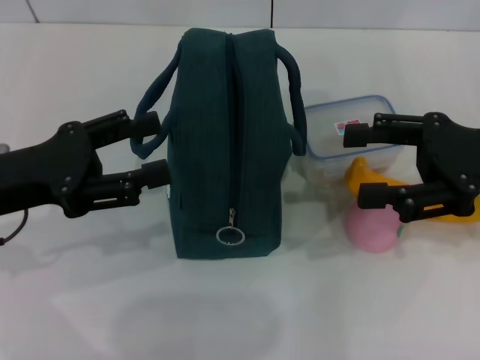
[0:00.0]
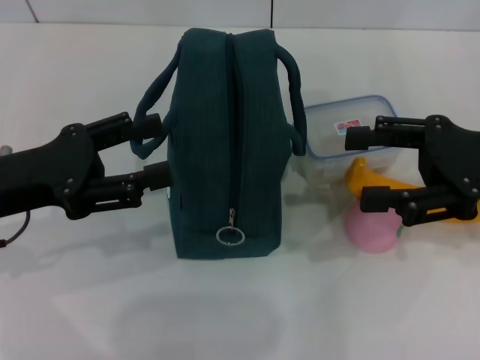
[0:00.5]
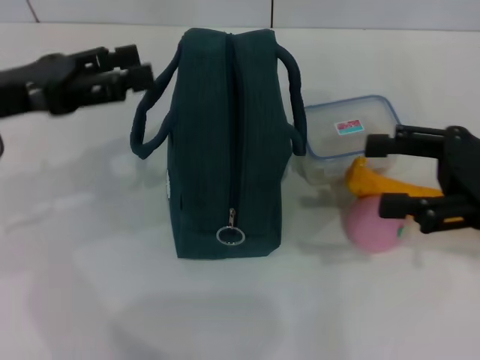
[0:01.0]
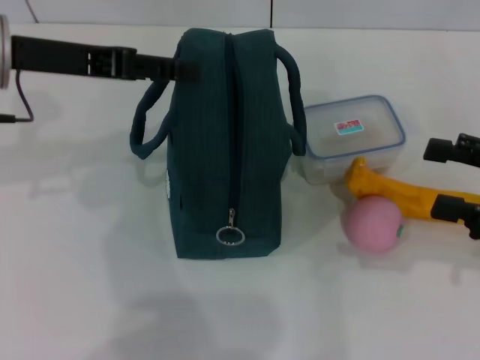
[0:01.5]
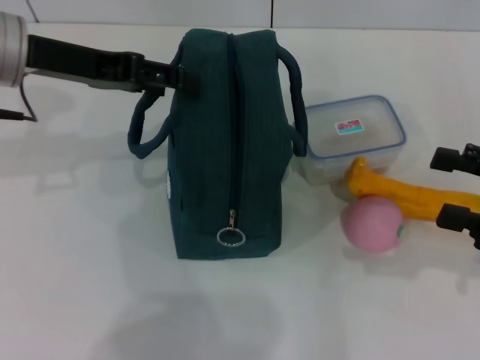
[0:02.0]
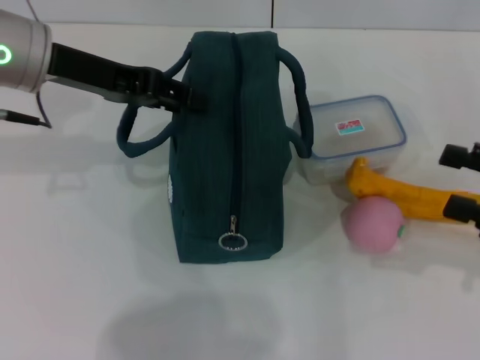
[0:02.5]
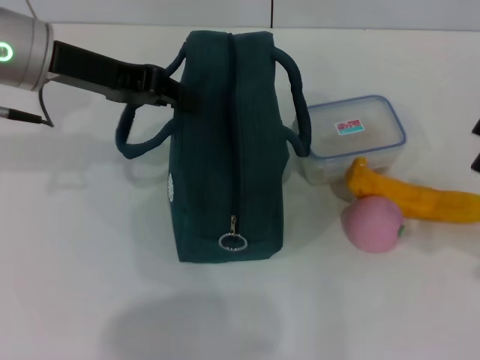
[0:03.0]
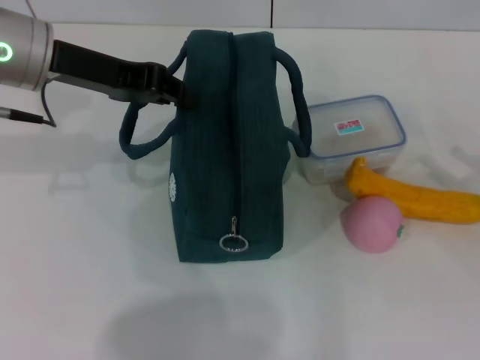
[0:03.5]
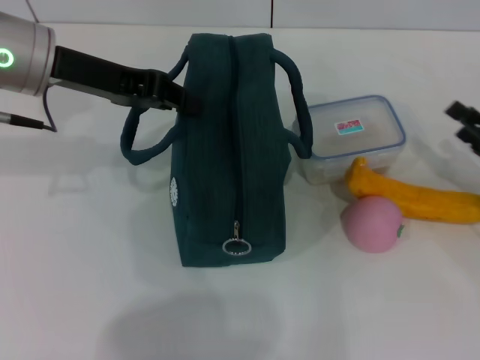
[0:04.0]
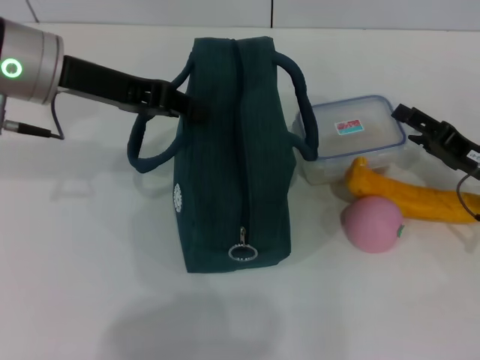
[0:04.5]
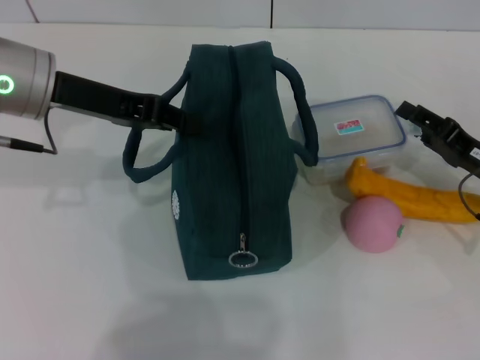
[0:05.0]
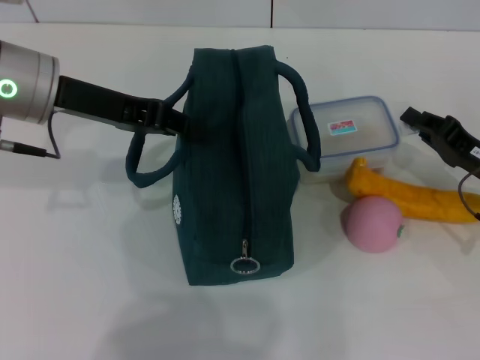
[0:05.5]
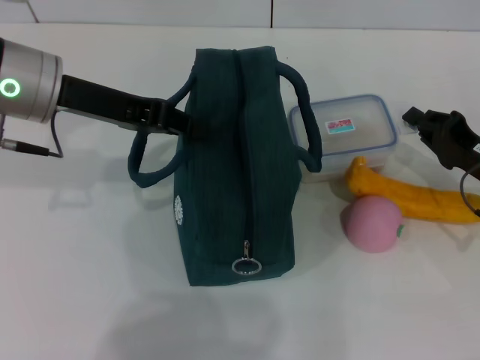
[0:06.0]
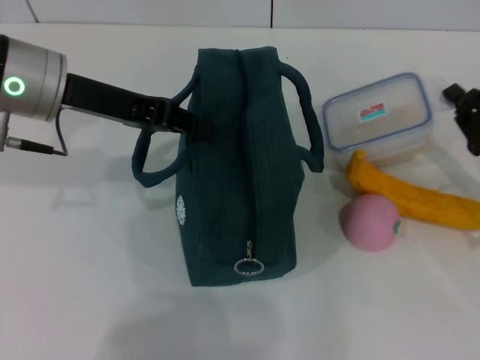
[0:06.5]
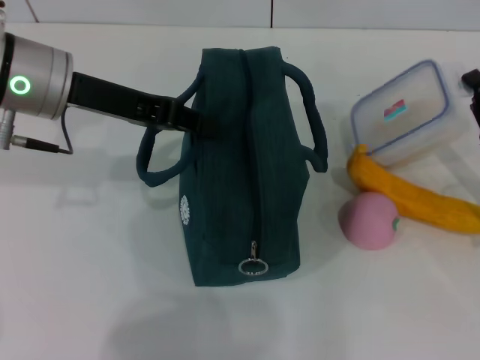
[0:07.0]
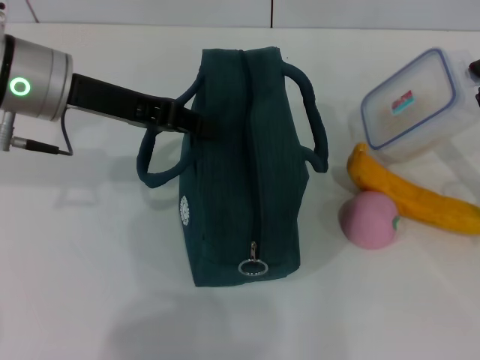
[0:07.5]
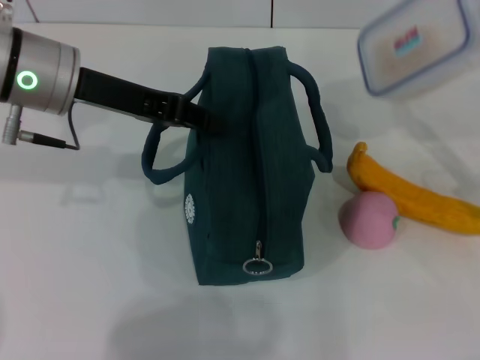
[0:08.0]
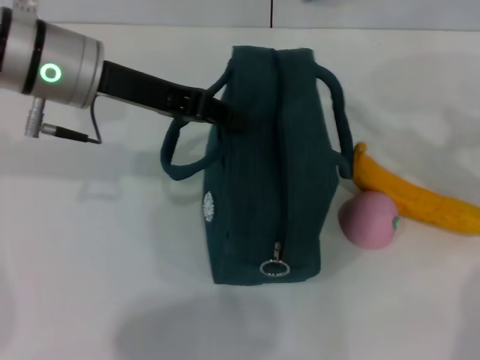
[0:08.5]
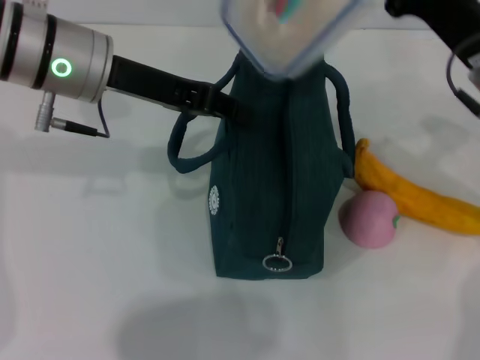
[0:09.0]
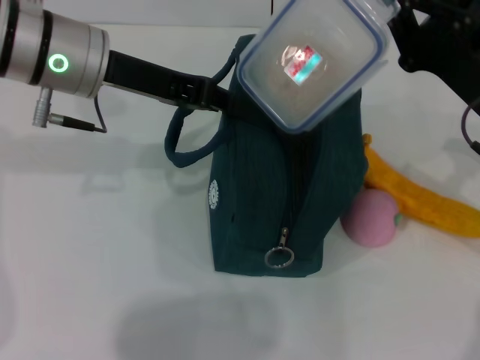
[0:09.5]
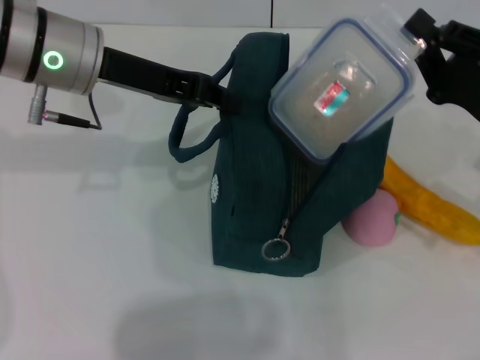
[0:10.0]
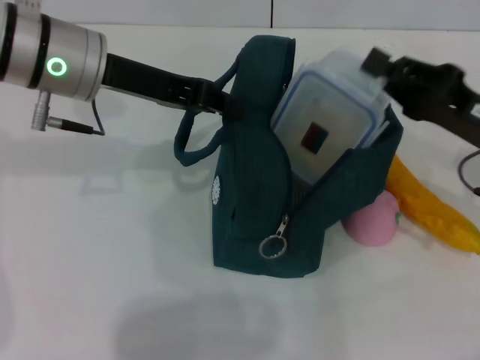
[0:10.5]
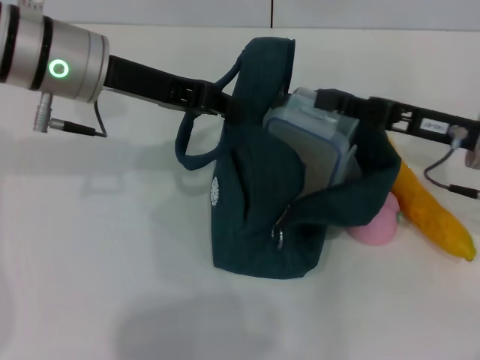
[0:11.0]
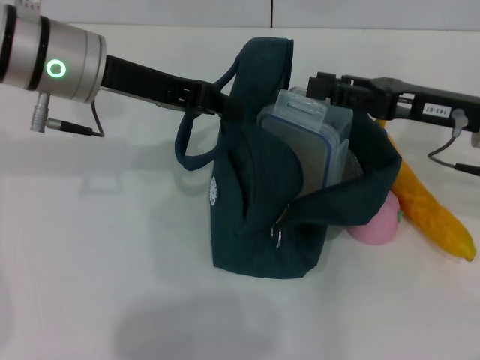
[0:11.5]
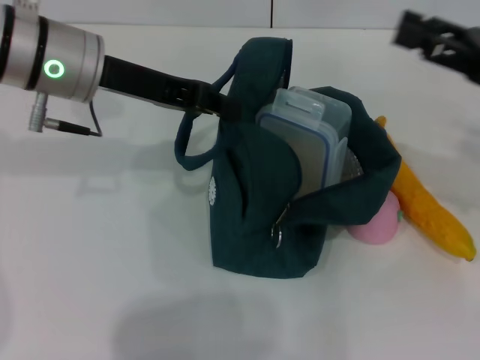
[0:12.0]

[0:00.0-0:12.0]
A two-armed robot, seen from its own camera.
Step, 0.0 to 5.5 s: Hold the lunch bag with your left hand.
Step, 6.0 to 6.5 s: Pick up the lunch box with your right hand.
Step, 7.0 to 11.0 s: Place the lunch box into the lunch bag with your right hand.
0.0 to 2.0 s: The right gripper moves to the right and backward, about 10 cm, while the left gripper heads forward and upward, covering about 15 cm.
2.0 to 4.0 s: The right gripper travels downward by about 10 cm, while the left gripper closes.
4.0 to 6.0 s: The right gripper ends up roughly 5 cm from where it was, and closes up.
6.0 to 8.0 s: The right gripper shifts approximately 5 cm upward.
10.0 to 12.0 s: The right gripper moves upward, some 5 cm, and opens up.

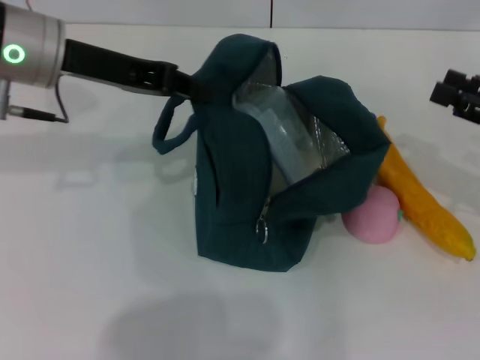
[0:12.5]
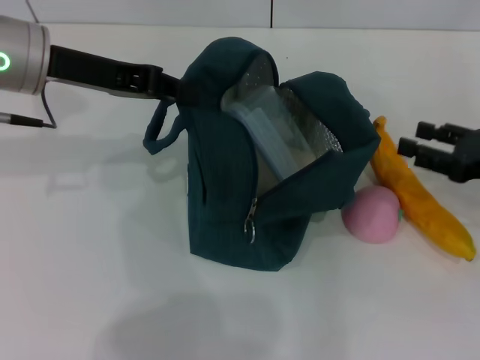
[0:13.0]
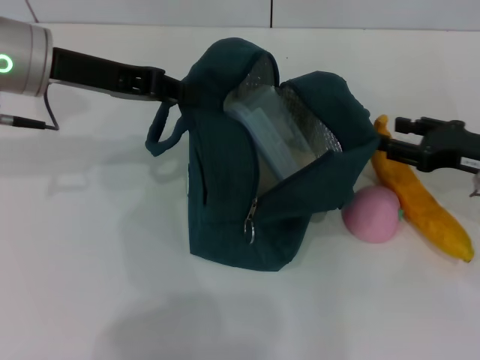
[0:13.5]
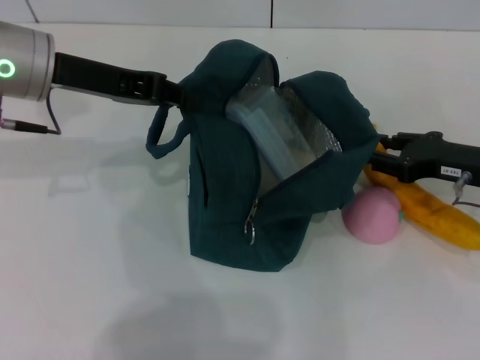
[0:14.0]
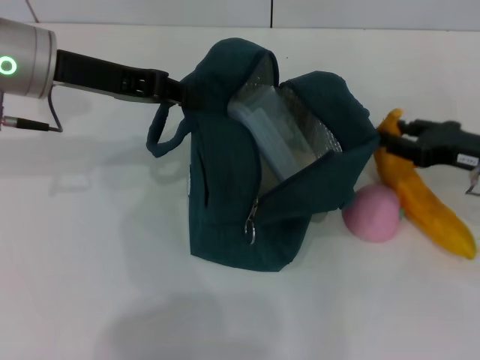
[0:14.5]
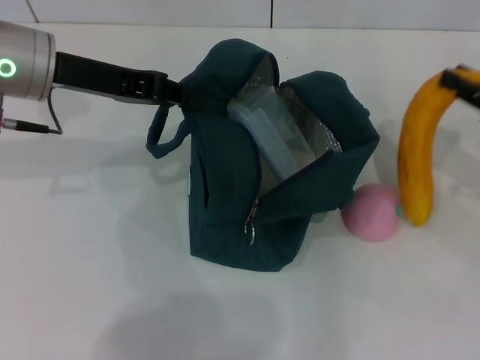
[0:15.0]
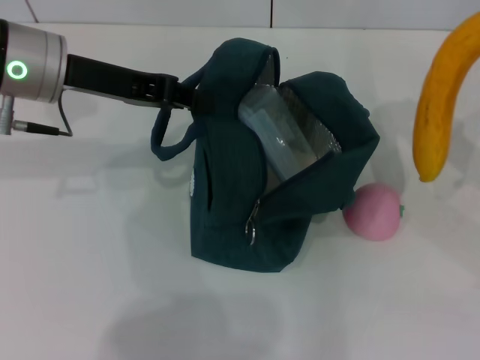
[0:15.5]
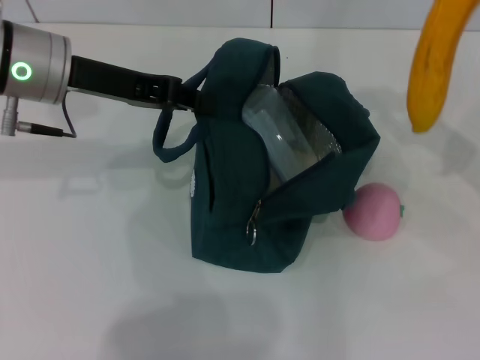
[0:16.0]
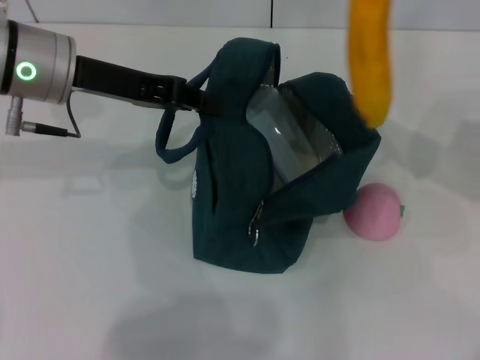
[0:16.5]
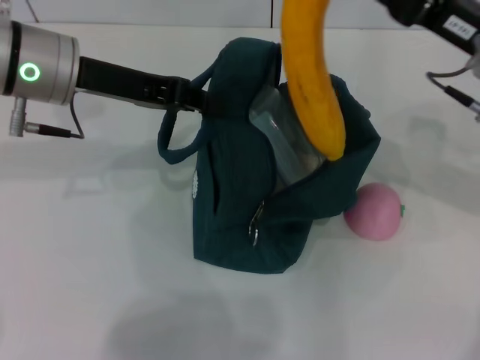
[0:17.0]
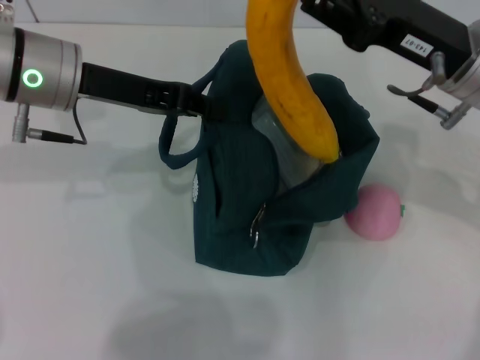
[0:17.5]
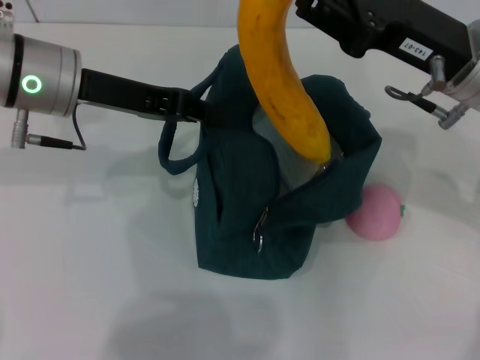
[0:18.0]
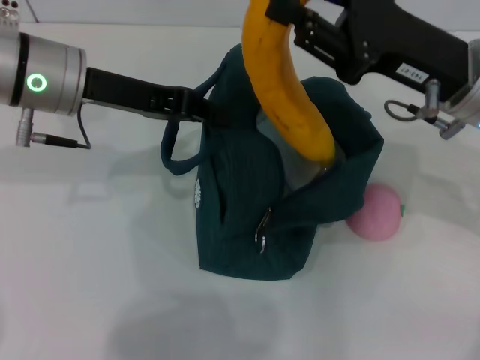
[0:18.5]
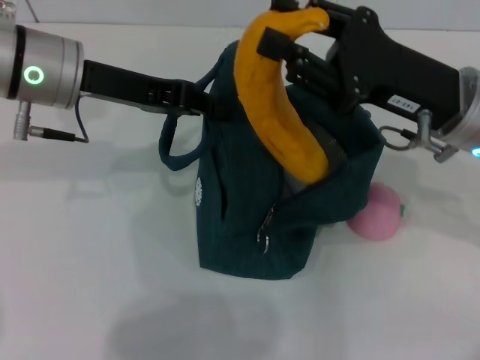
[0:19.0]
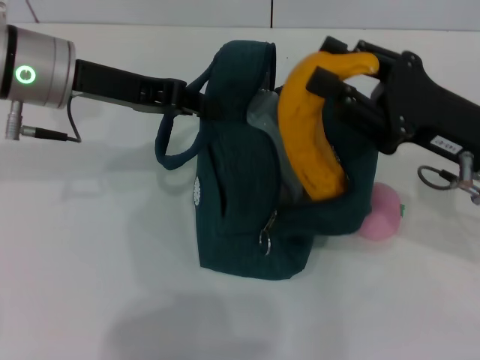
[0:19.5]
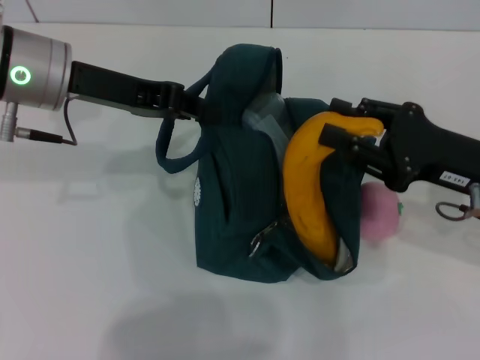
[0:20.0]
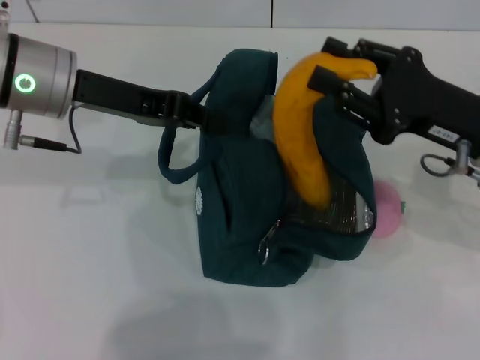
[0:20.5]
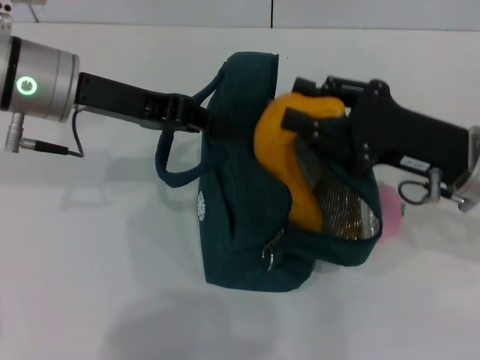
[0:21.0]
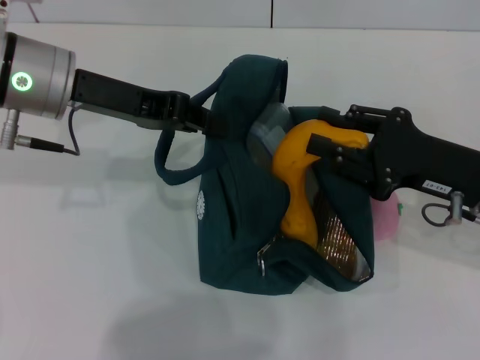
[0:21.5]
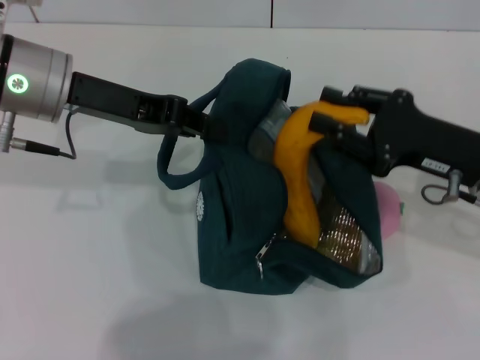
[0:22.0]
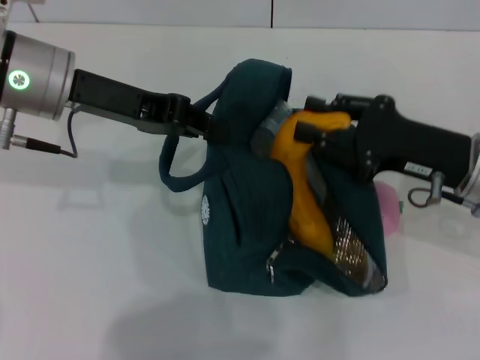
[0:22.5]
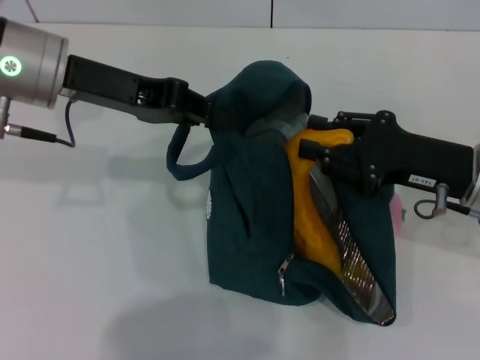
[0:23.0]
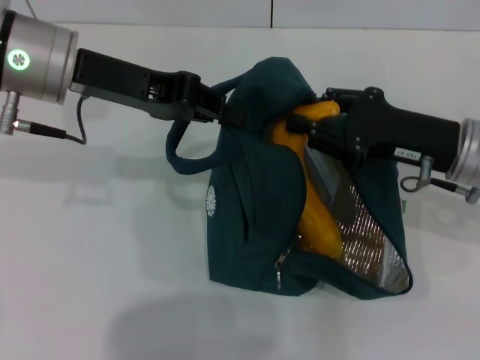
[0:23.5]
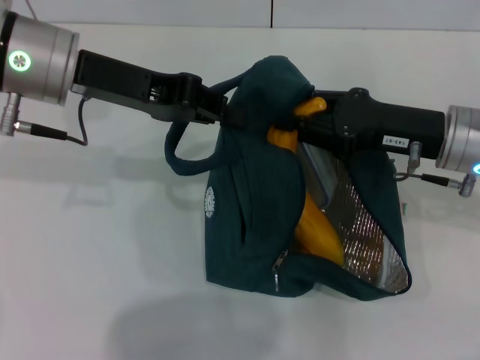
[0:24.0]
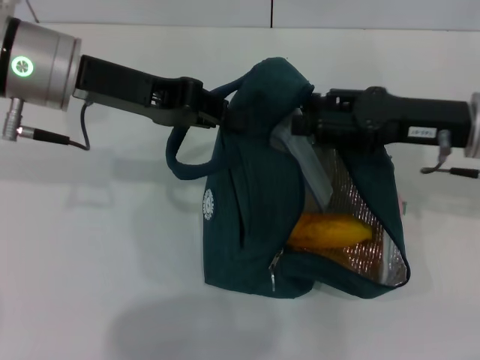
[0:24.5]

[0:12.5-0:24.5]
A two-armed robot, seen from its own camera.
Step, 12.5 to 14.0 s: Take the banana with your right hand.
Step, 14.5 to 24.0 s: Put the banana into the lunch bag with your right hand.
12.5 to 14.5 s: The right gripper shifts by about 10 cm.
14.5 to 16.5 s: The right gripper goes some 10 cm upward.
16.5 to 18.5 s: The right gripper goes approximately 10 cm to the left.

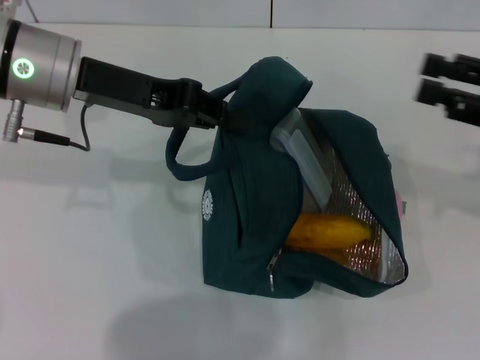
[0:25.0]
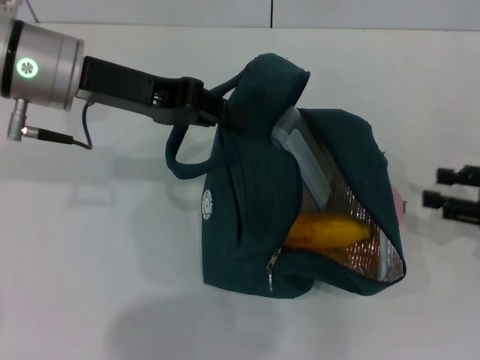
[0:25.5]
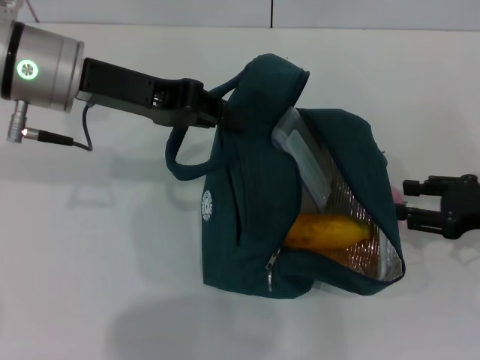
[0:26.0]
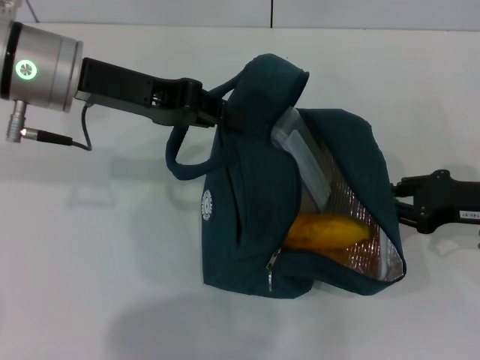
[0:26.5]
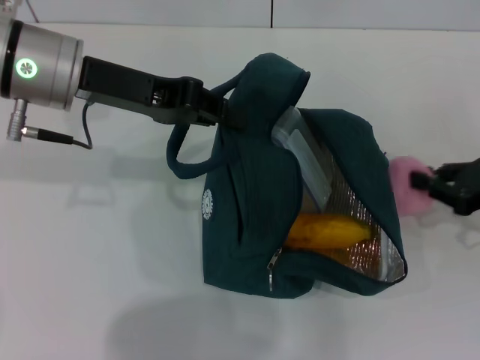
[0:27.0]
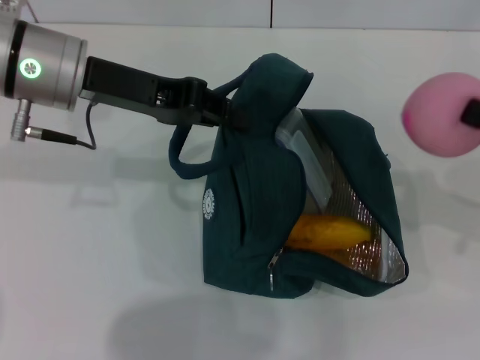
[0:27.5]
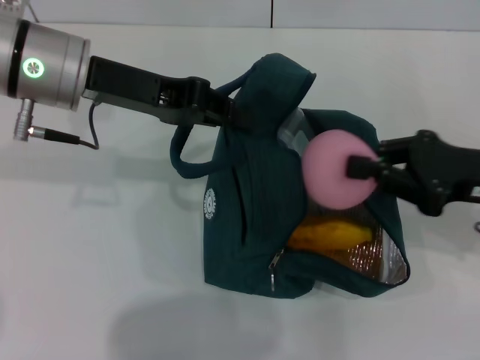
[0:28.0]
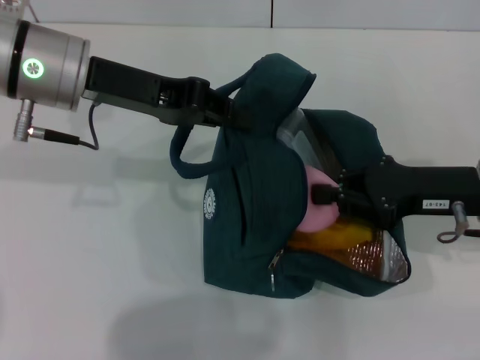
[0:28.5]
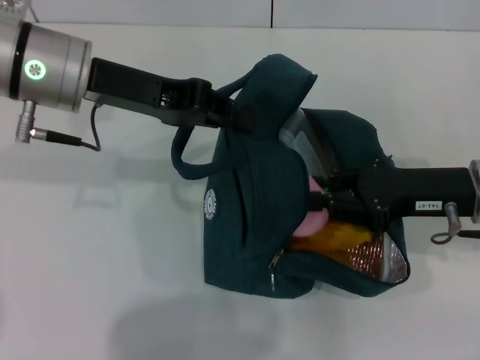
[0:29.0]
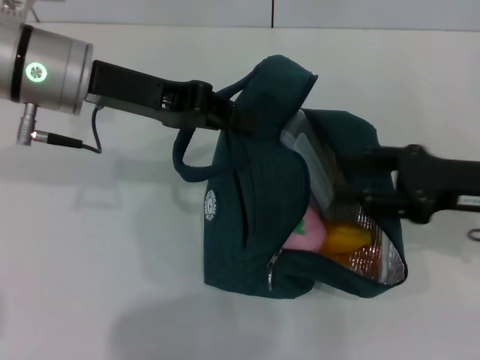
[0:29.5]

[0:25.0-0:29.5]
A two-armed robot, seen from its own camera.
Step, 25.0 to 26.5 s: Grab the peach with your right hand.
25.0 to 27.0 s: The right gripper travels downward by about 10 cm, and closes.
27.0 to 29.5 s: The right gripper goes roughly 5 cm to the left, and opens up.
